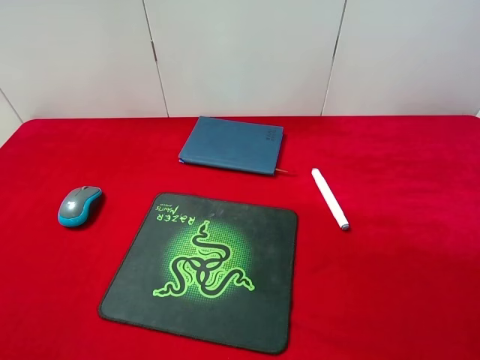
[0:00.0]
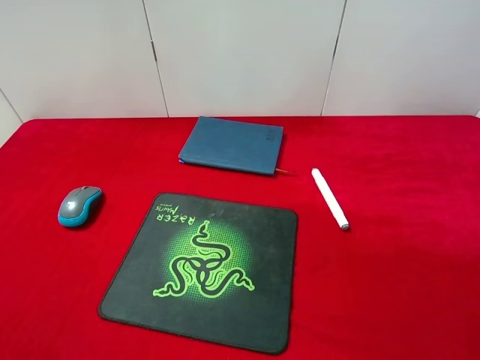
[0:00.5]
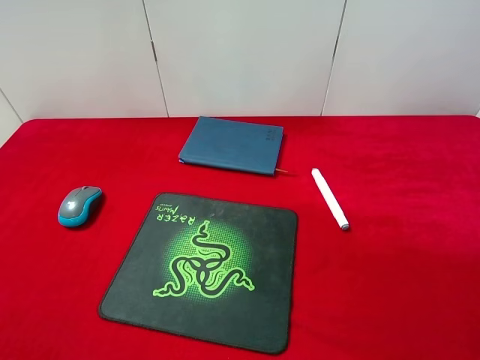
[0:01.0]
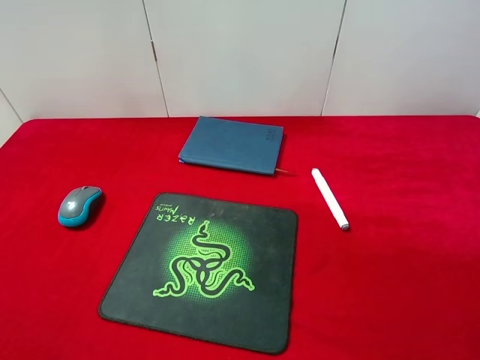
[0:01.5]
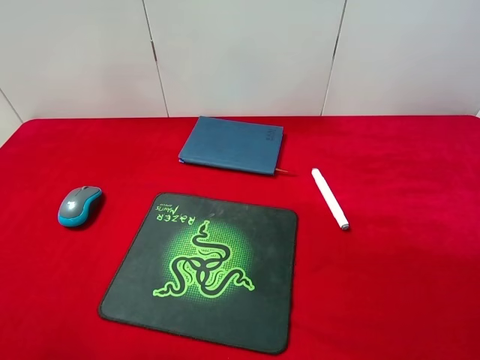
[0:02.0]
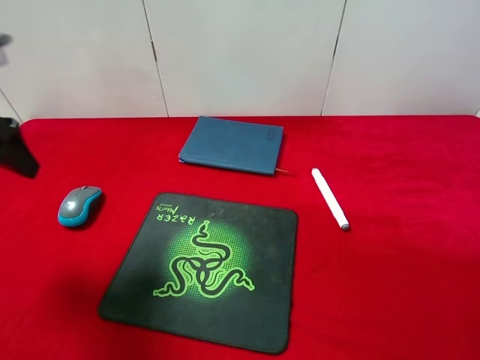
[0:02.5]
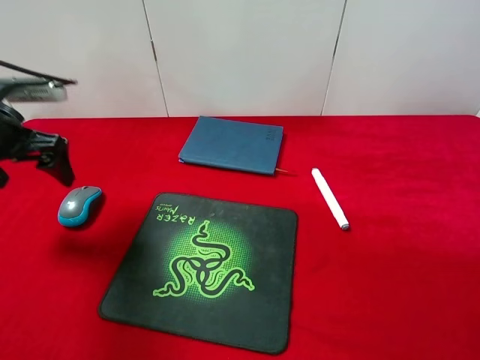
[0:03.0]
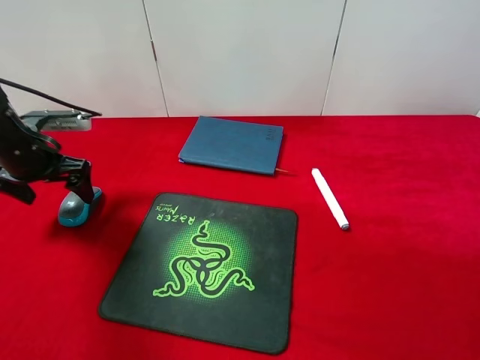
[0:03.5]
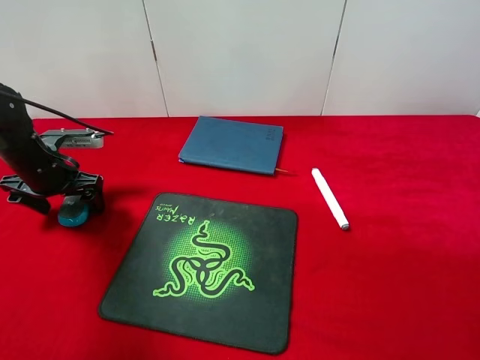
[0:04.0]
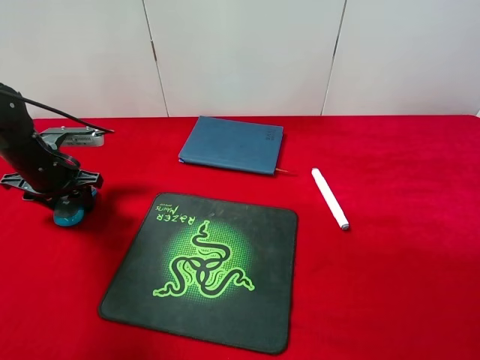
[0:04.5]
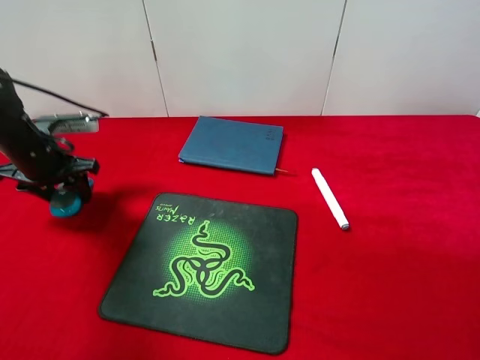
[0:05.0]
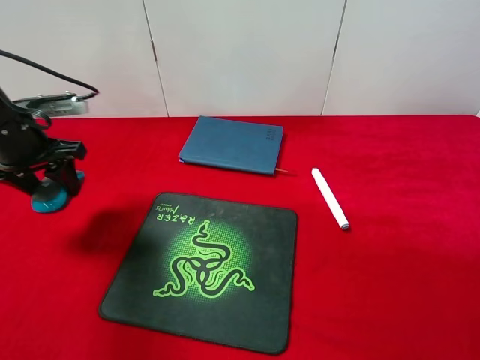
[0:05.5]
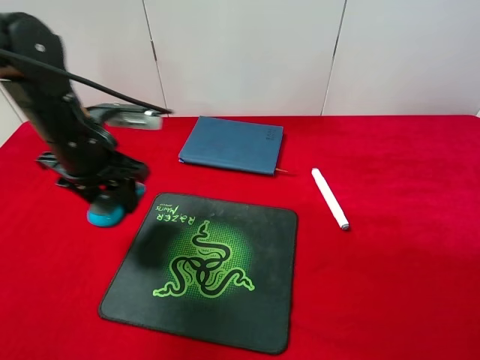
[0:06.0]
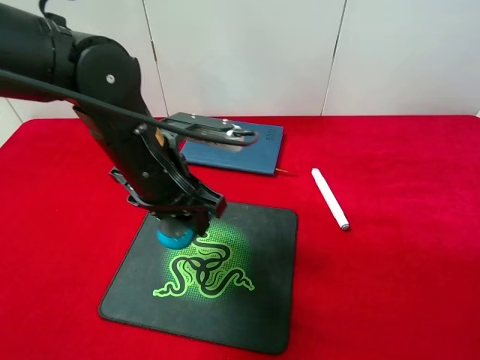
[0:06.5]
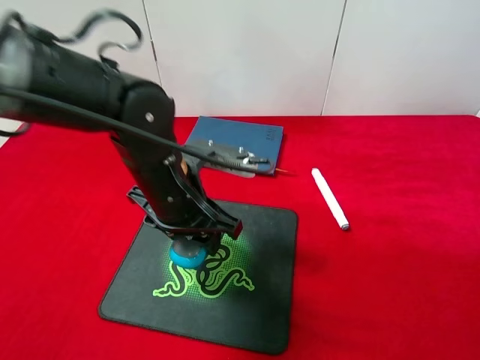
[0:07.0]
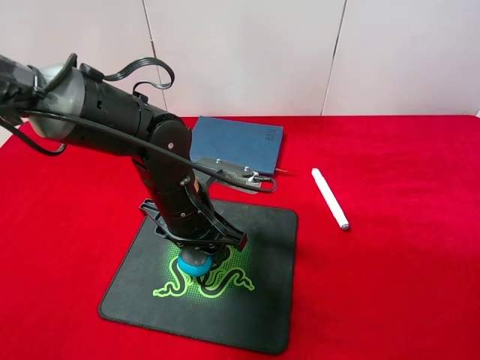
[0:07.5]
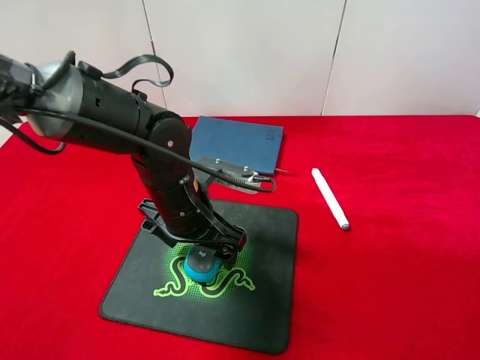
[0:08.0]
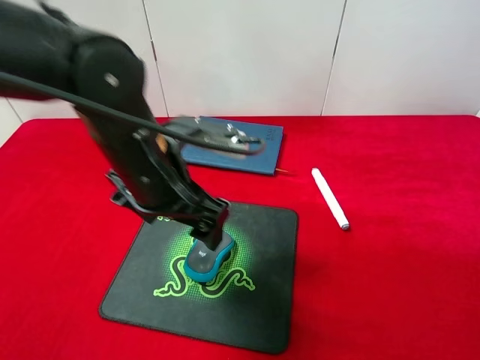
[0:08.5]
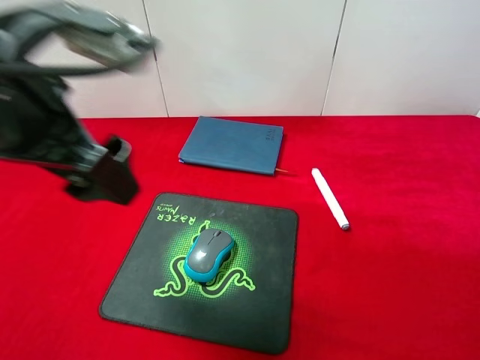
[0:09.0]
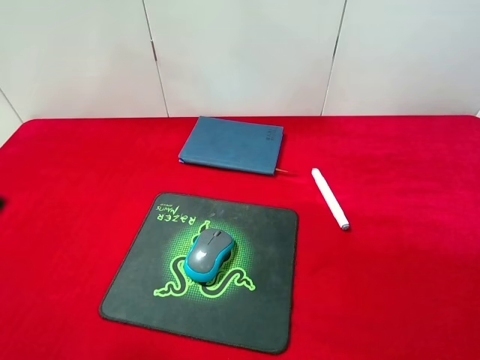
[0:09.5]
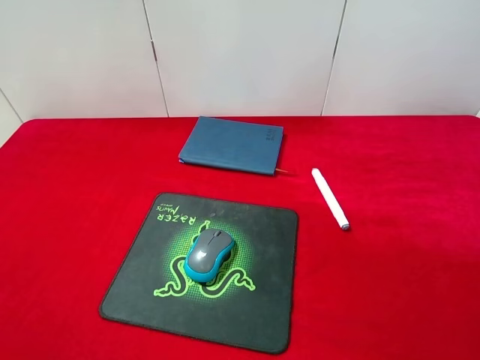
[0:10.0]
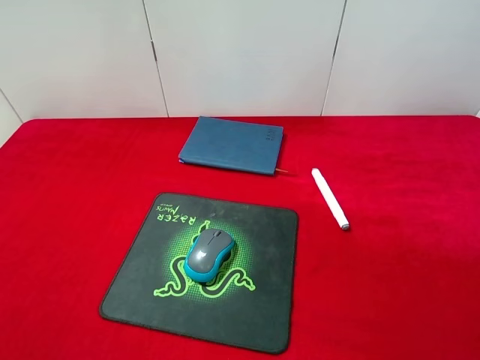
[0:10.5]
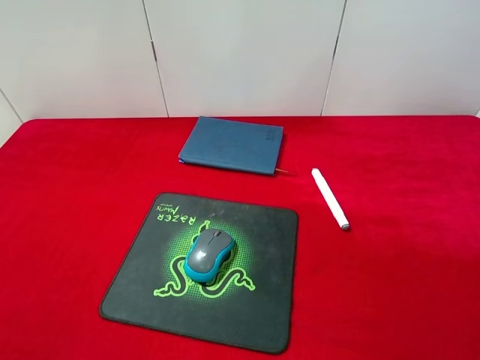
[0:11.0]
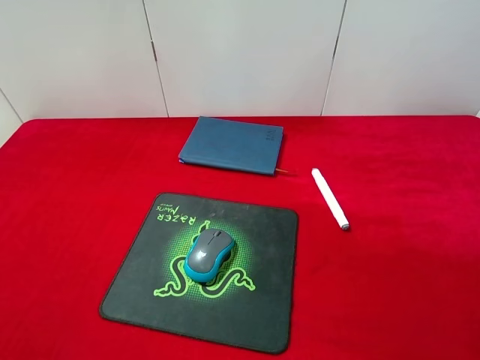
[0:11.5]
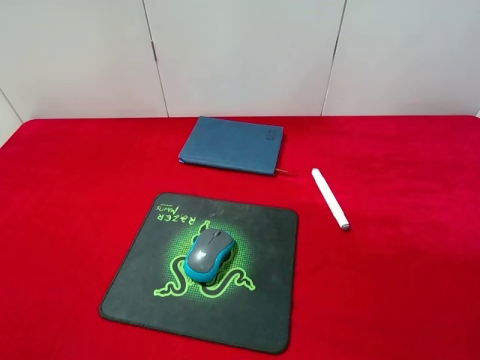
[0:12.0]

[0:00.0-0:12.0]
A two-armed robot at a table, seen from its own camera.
Step, 0:00.0 to 0:05.0: Pick up the mouse with left gripper.
Step, 0:05.5 to 0:08.0: Place the mouse on the mouse pad with left gripper.
0:02.0 to 0:04.0: The left gripper heads forward and downward, covering about 30 cm.
0:04.0 to 0:06.0: The left gripper shifts roughly 15 cm to the right and upward, and closes up.
0:06.0 to 0:08.0: The left gripper is displaced to the right and downward by some 15 cm, and opens its fingers.
0:08.0 to 0:10.0: The left gripper heads to the left, backward and upward, covering approximately 35 cm.

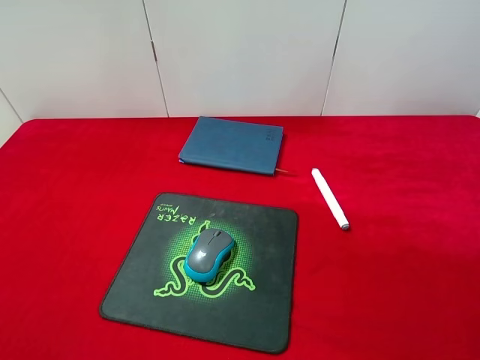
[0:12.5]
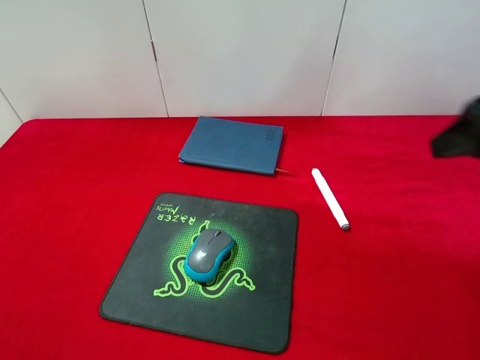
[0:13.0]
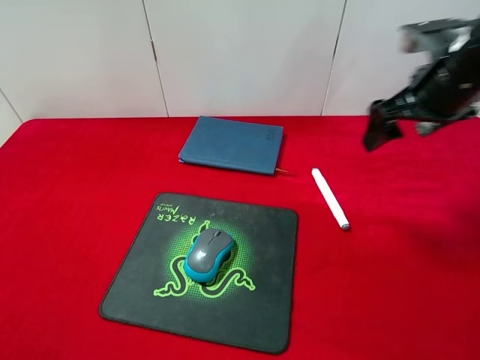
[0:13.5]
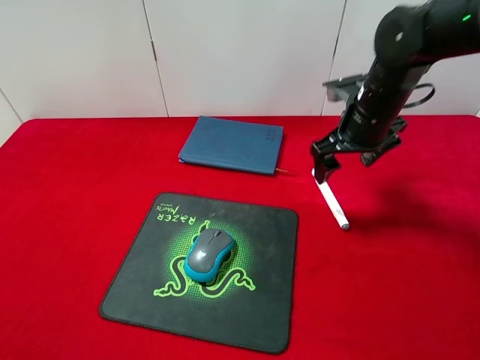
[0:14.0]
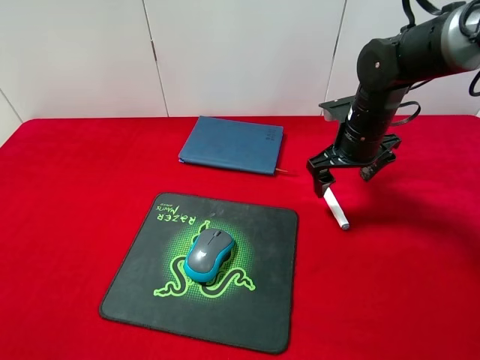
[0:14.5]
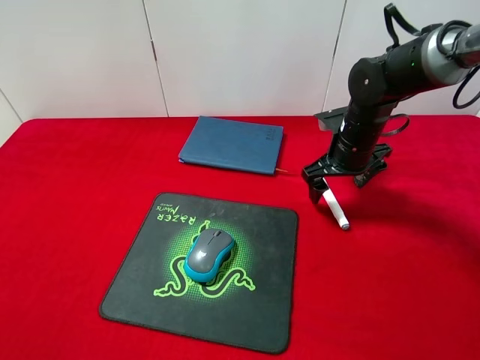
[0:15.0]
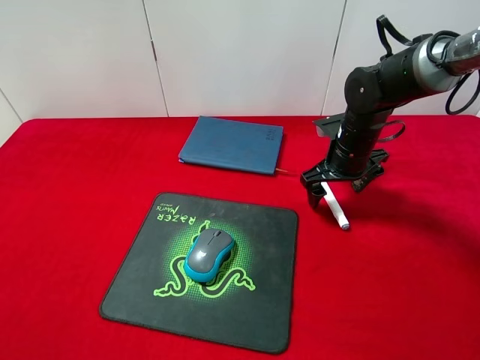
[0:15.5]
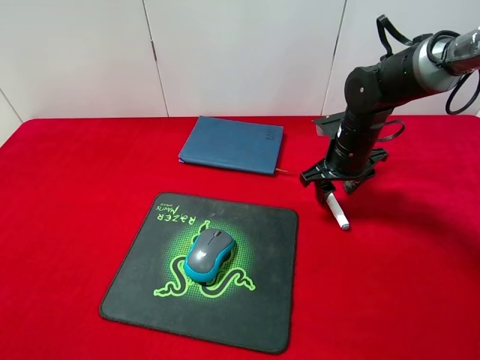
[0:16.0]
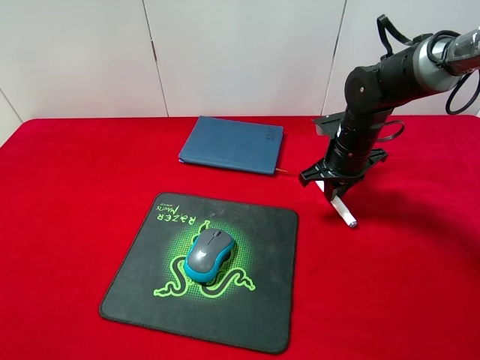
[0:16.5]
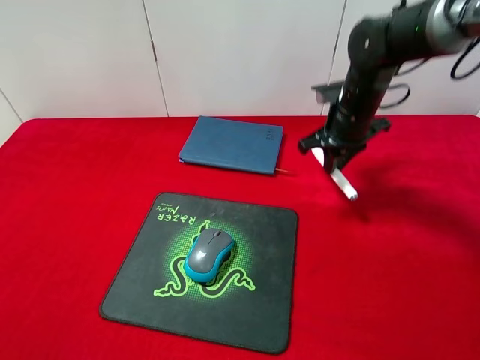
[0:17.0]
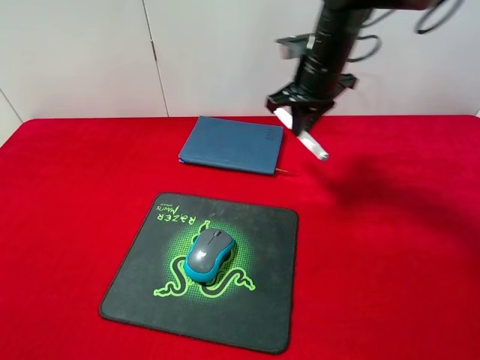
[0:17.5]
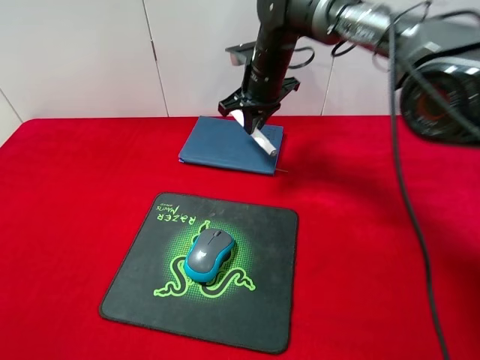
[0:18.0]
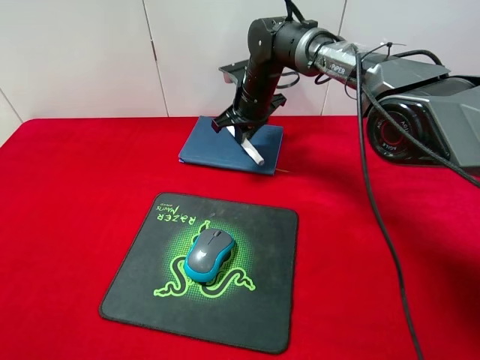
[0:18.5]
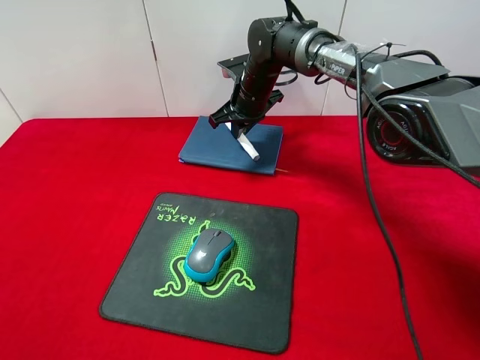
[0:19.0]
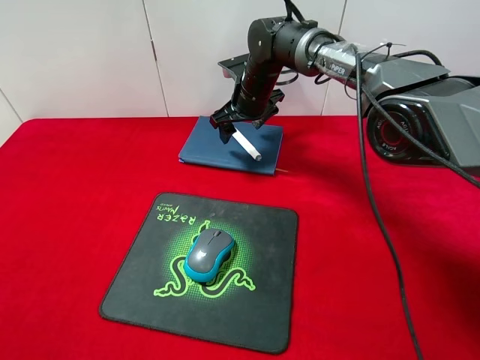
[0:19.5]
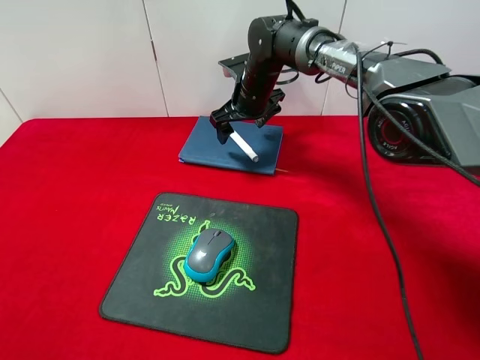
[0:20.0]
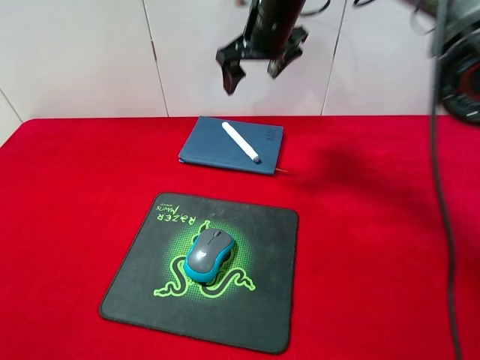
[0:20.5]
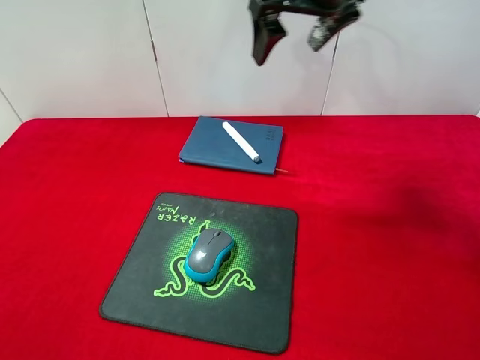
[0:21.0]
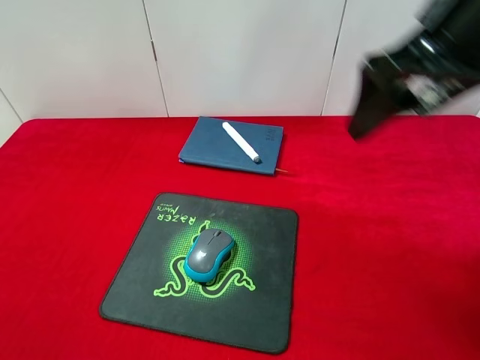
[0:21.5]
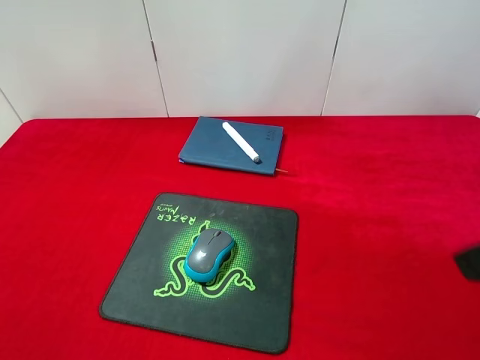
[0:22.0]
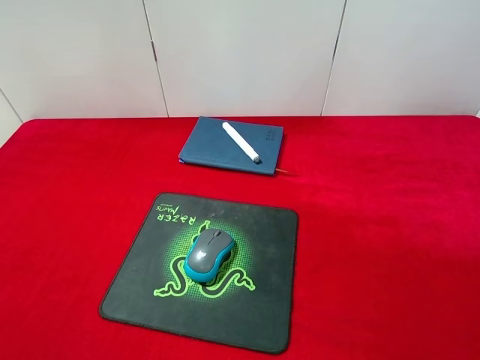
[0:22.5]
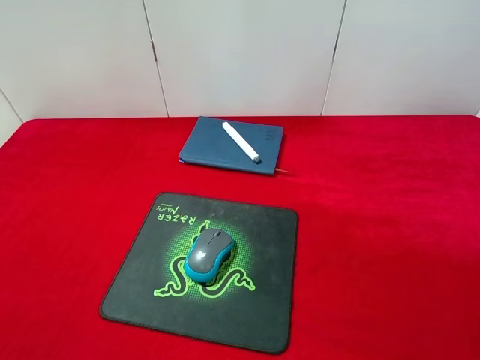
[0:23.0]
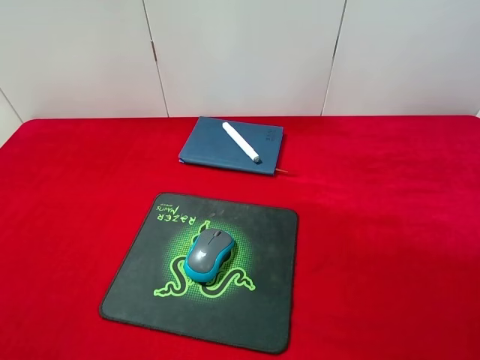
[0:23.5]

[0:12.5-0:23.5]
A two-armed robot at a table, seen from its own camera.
Step, 0:12.5 to 0:16.5: Pick up the marker pen with right gripper.
Step, 0:17.0 to 0:19.0: Place the marker pen on the notebook with right gripper.
0:12.5 to 0:14.5: The right gripper goes approximately 35 cm forward.
0:14.5 to 0:16.0: The right gripper closes.
0:16.0 to 0:18.0: The right gripper goes approximately 20 cm to the left, forward and upward, and closes its fingers.
0:18.0 to 0:20.0: The right gripper opens its fingers.
0:20.0 to 0:21.5: The right gripper is displaced backward, upward and to the right by some 35 cm.
0:21.5 to 0:23.5: The right gripper moves backward and to the right, some 25 cm.

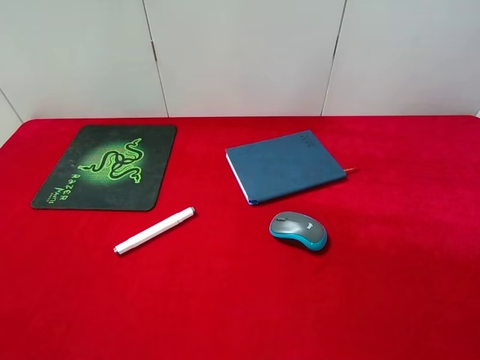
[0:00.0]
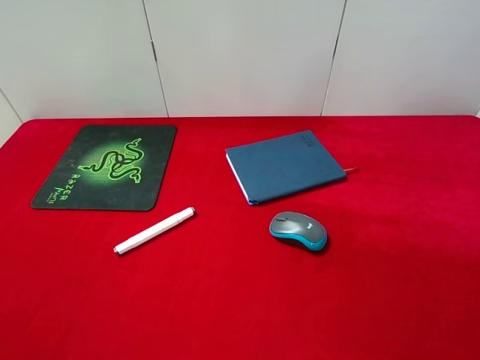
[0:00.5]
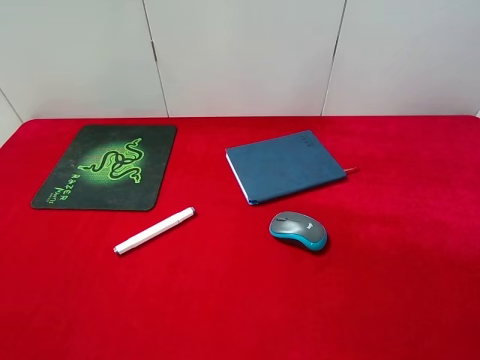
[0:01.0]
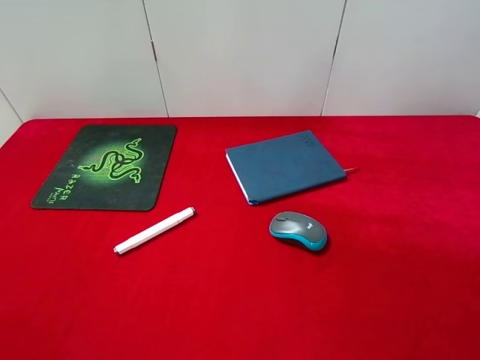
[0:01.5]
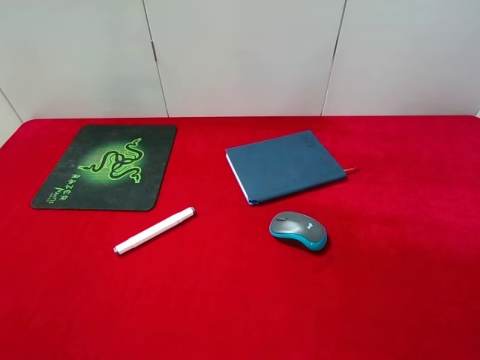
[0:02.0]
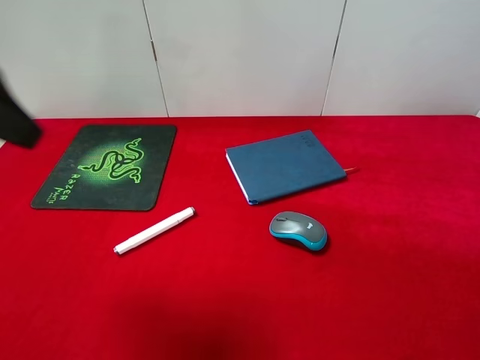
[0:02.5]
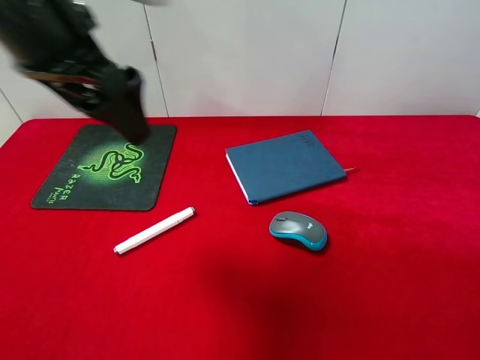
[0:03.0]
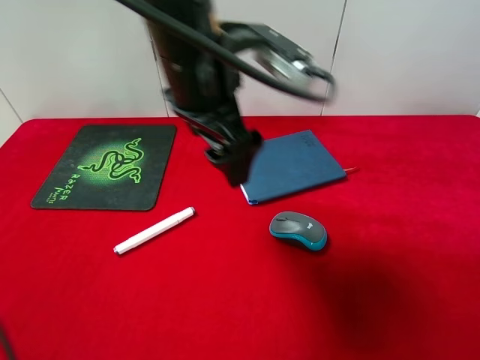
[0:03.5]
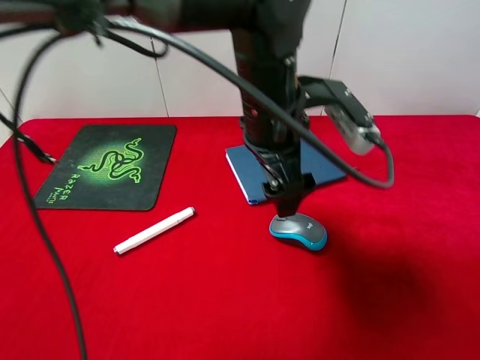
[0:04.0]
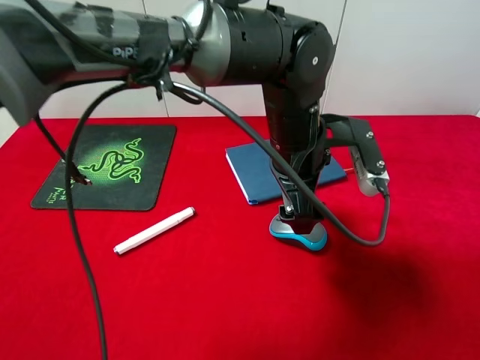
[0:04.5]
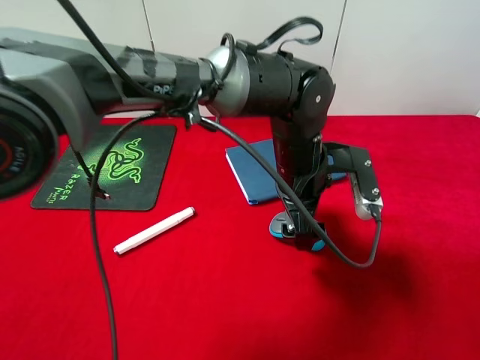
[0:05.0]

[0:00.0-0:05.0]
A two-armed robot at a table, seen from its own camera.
0:00.0 to 0:02.5: The left gripper heads forward and upward, covering some 20 cm.
0:02.5 to 0:05.0: The left gripper heads to the right and downward, covering about 40 cm.
